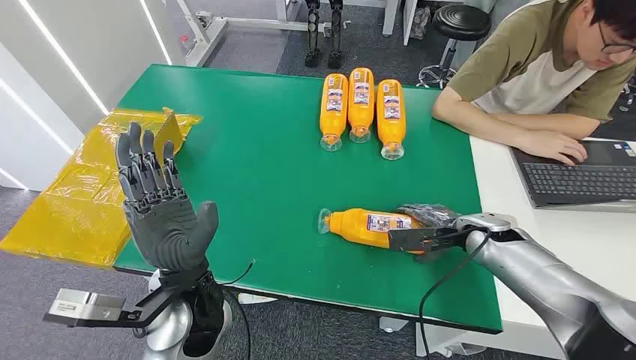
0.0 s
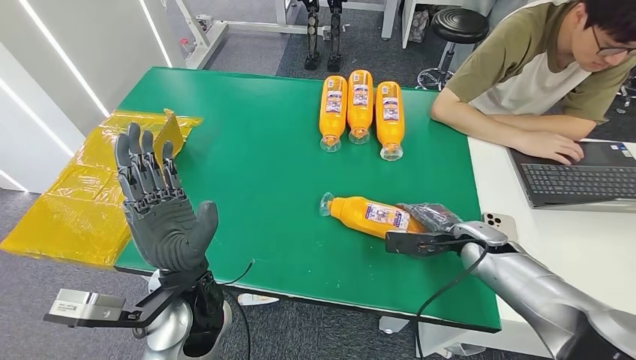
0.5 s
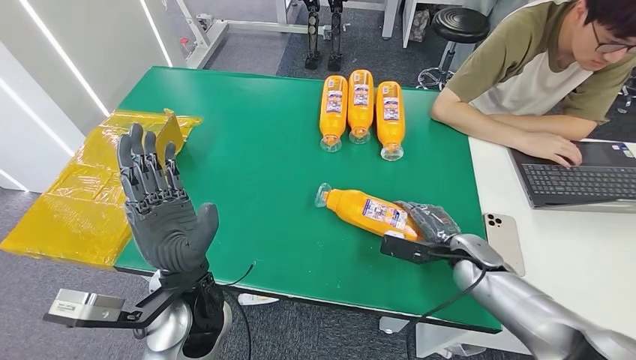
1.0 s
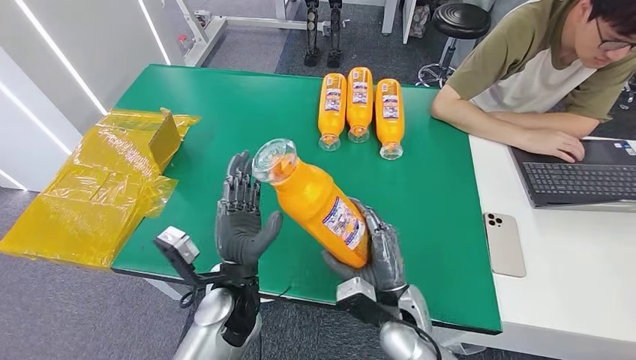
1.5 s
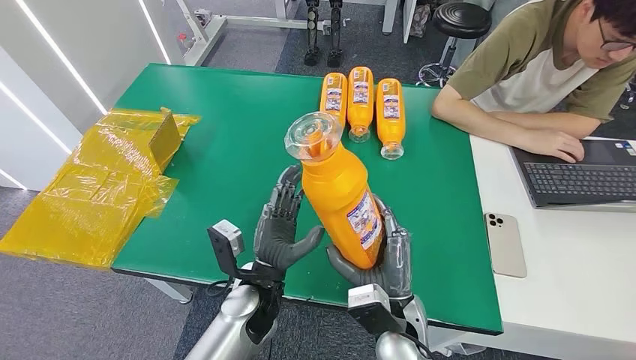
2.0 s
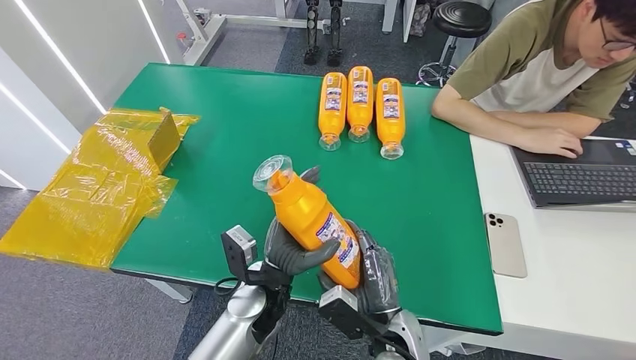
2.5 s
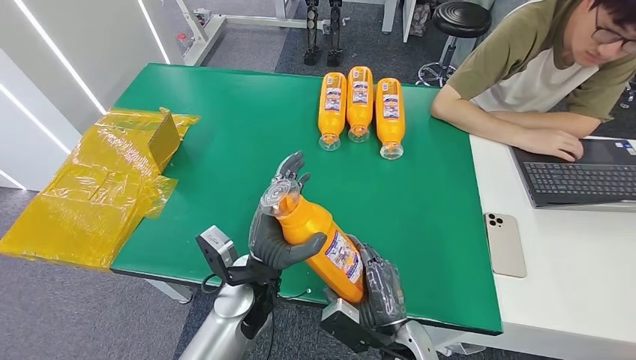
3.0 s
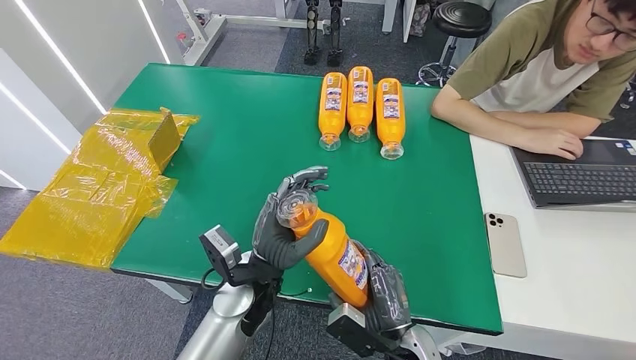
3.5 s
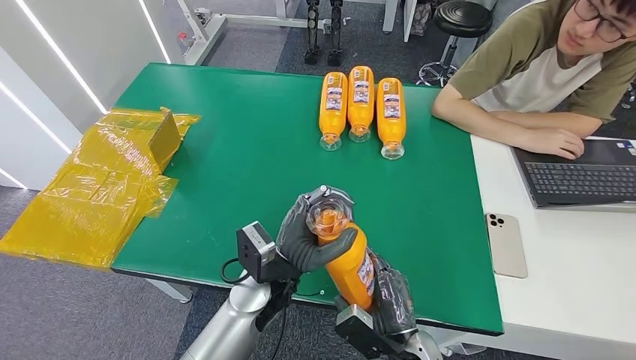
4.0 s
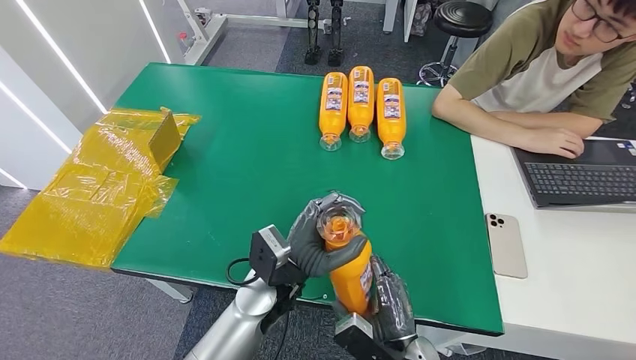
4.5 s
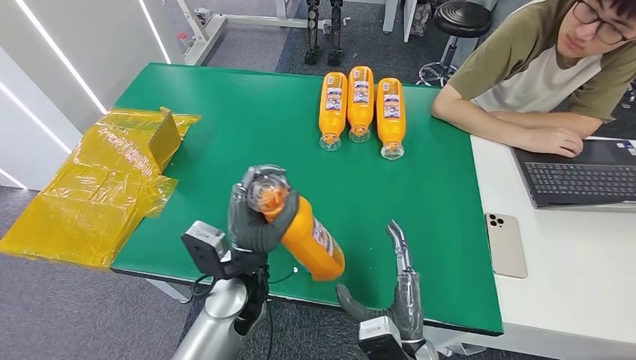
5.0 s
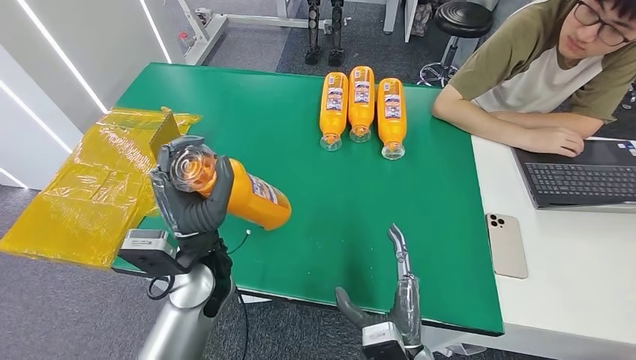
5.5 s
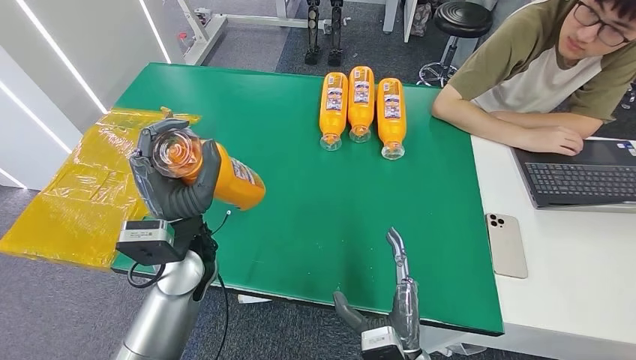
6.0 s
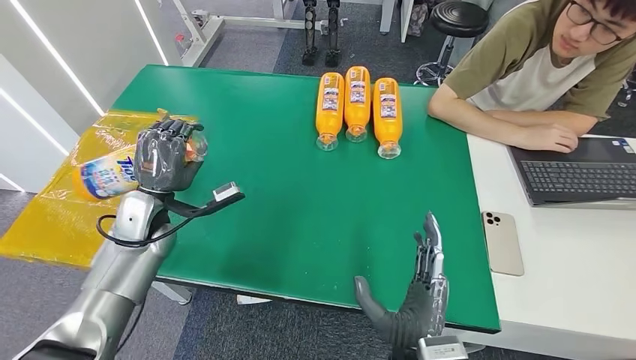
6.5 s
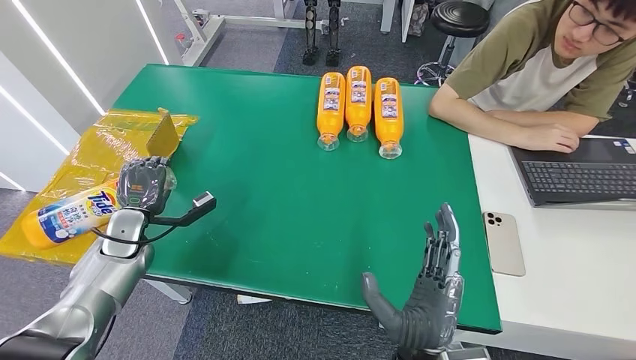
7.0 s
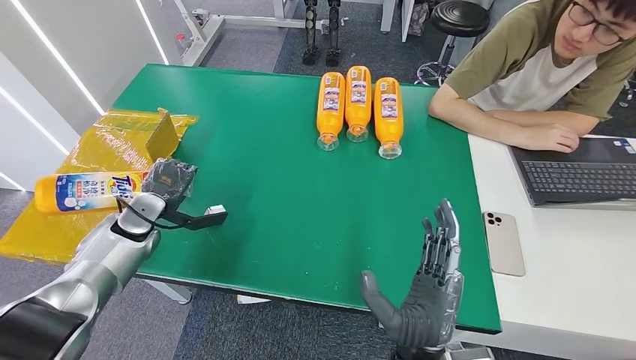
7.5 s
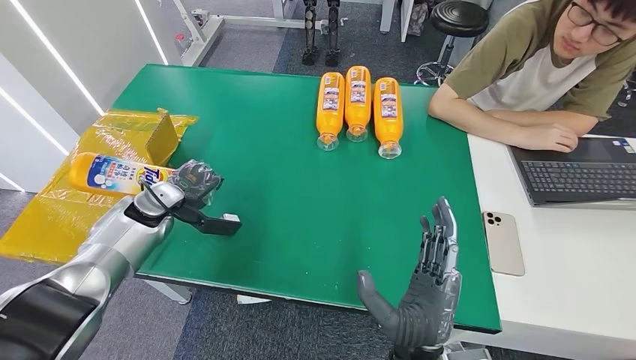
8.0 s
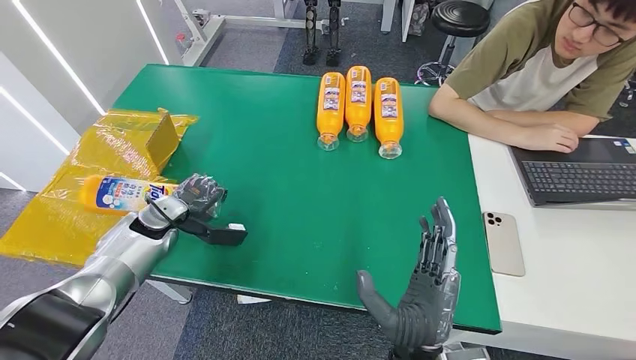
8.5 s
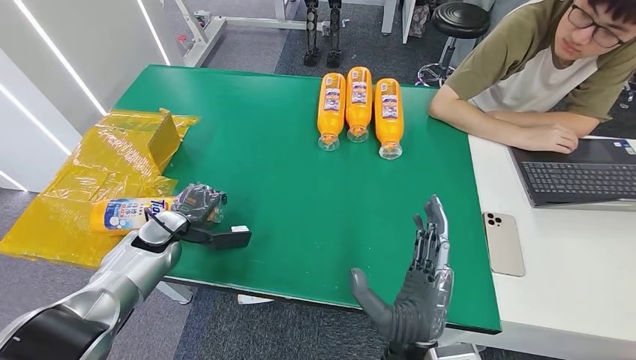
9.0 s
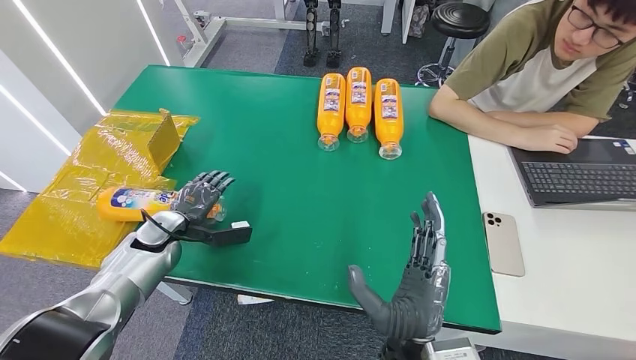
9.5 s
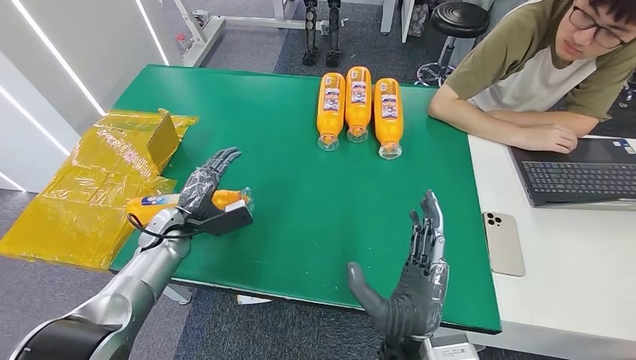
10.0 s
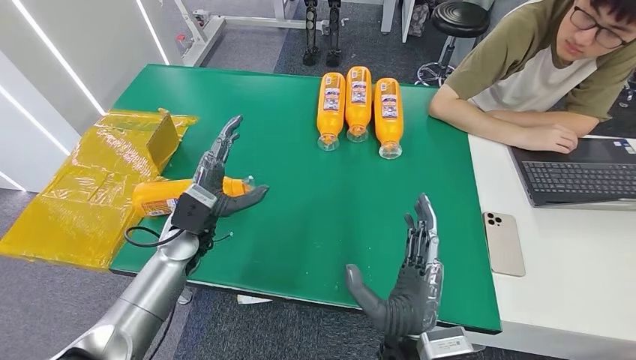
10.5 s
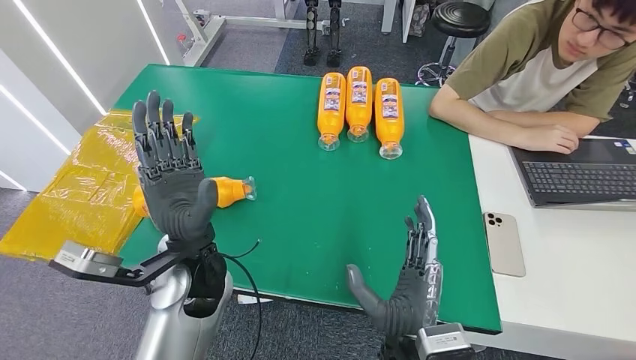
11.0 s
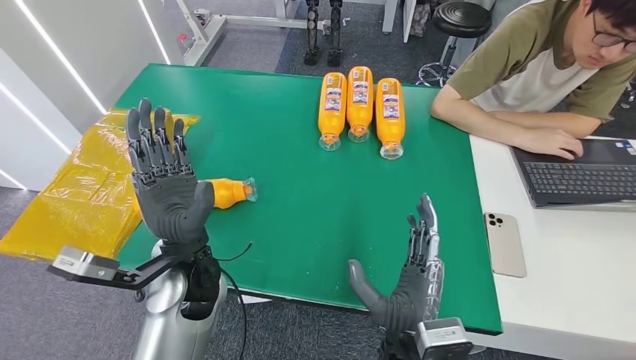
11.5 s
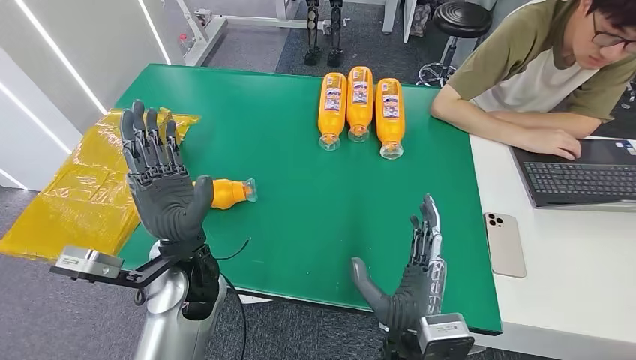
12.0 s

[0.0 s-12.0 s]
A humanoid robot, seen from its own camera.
Step, 0.0 to 3.5 s: Pick up the bottle from the table.
Step, 4.0 to 11.5 s: Turn the bottle to the front side.
2.0 to 4.0 s: The right hand heads downward, covering approximately 5 cm.
4.0 to 6.0 s: The left hand heads to the left and upward, covering about 15 cm.
8.0 to 10.0 s: The left hand shifts about 5 cm downward.
10.0 to 12.0 s: The left hand is displaced to the right, upward and backward by roughly 20 cm.
